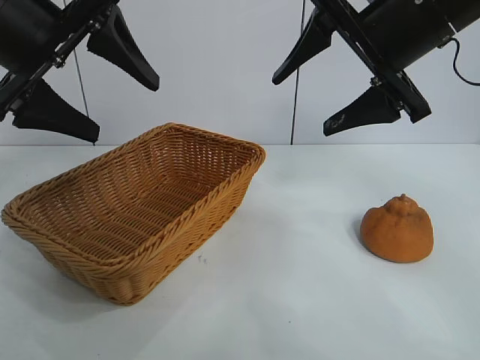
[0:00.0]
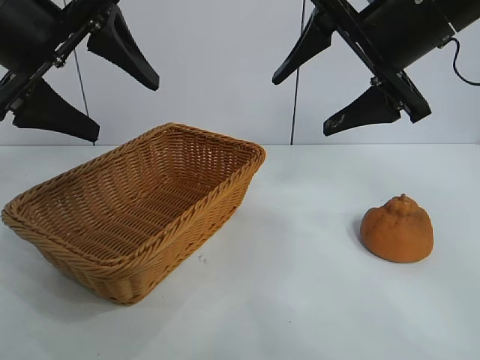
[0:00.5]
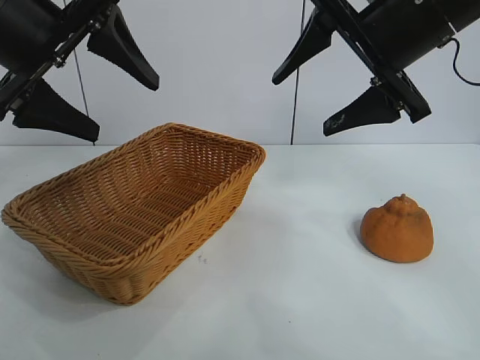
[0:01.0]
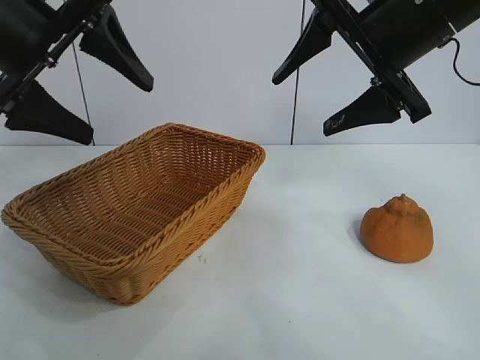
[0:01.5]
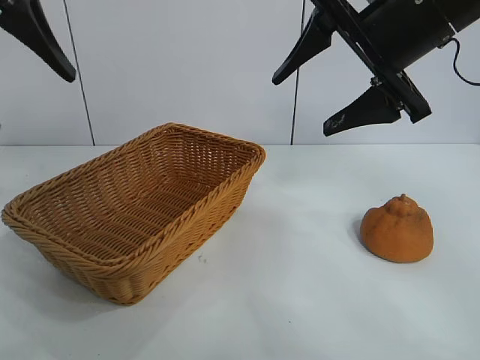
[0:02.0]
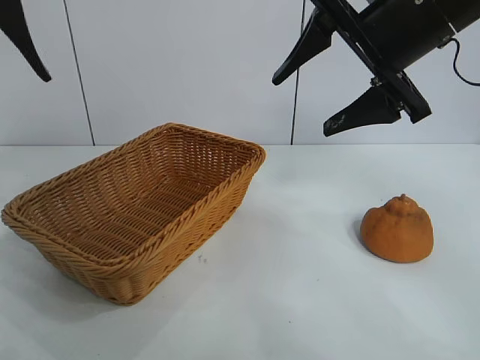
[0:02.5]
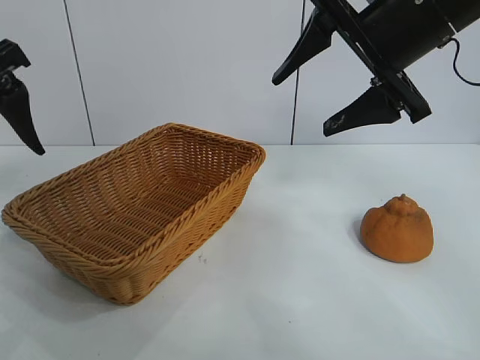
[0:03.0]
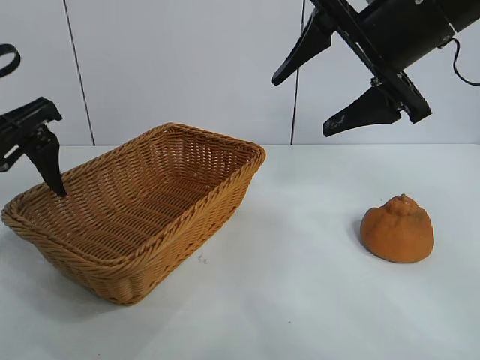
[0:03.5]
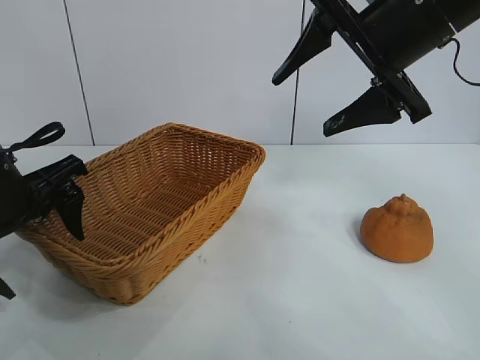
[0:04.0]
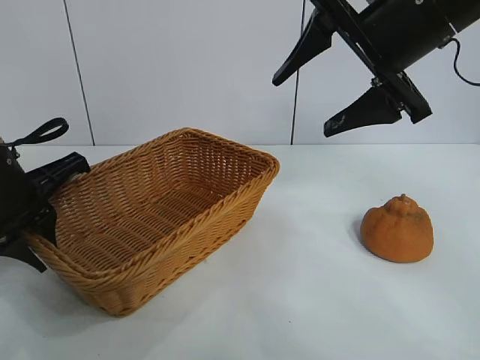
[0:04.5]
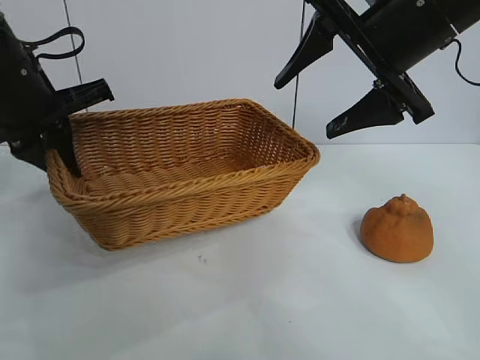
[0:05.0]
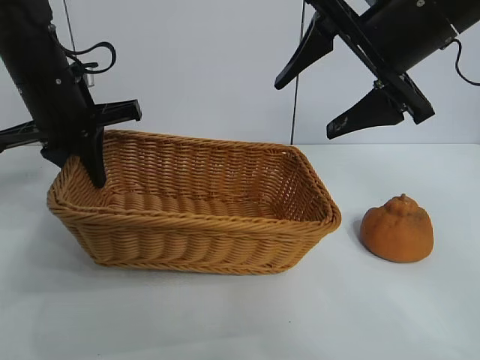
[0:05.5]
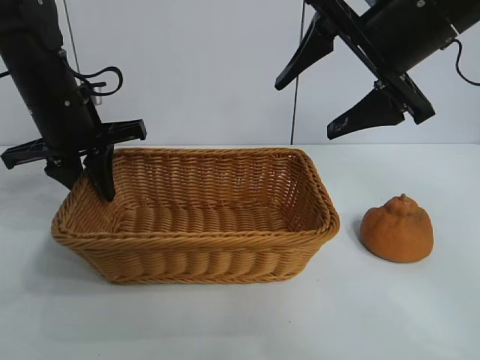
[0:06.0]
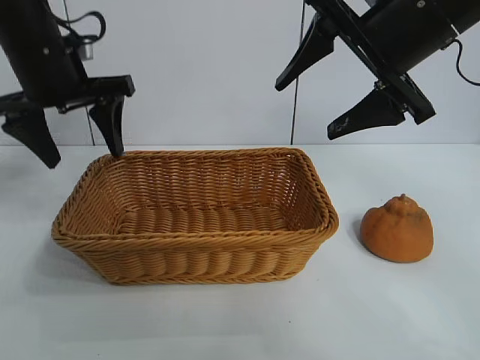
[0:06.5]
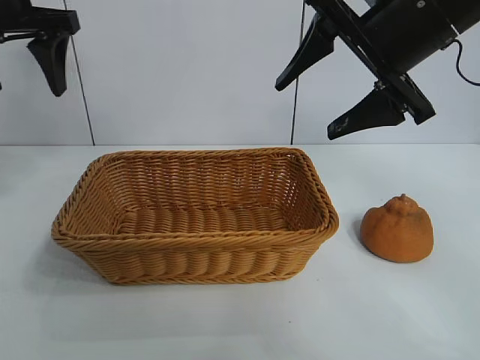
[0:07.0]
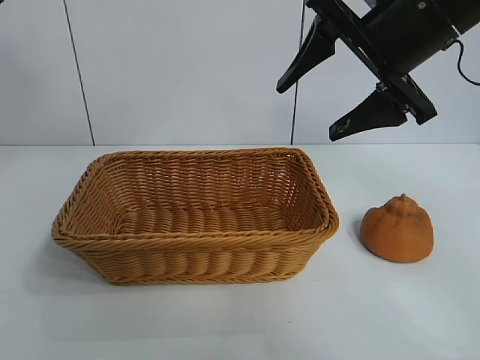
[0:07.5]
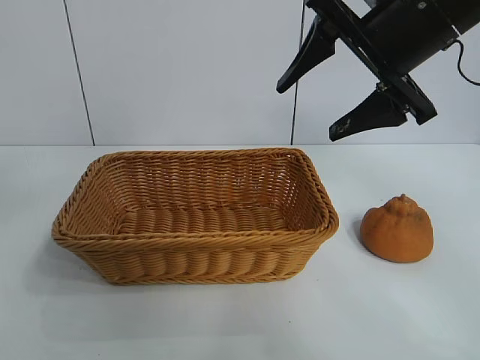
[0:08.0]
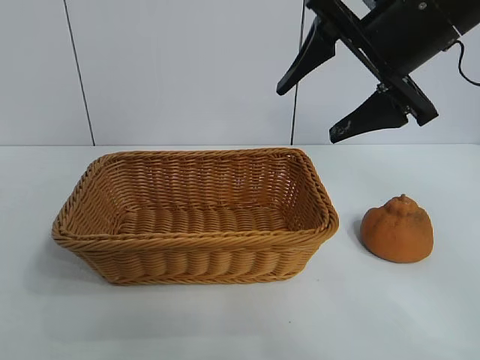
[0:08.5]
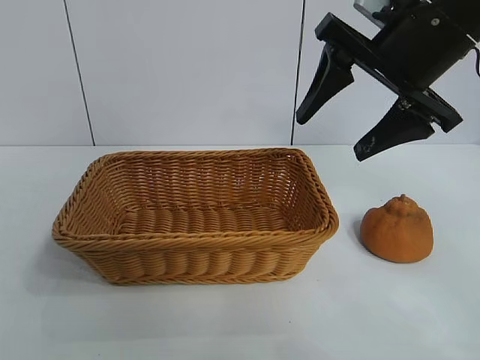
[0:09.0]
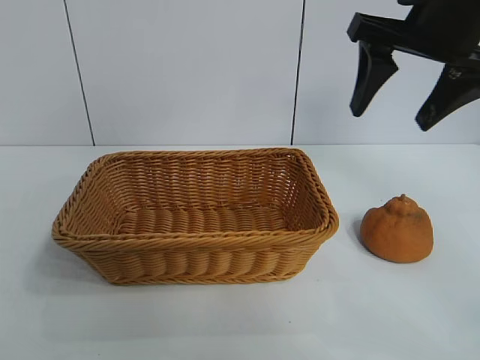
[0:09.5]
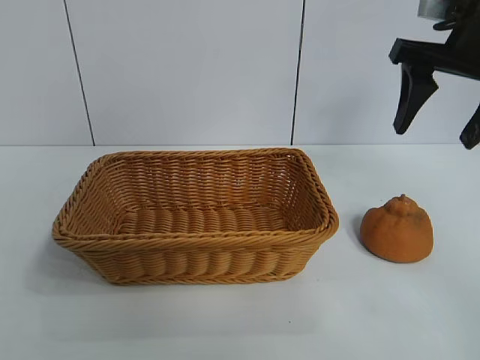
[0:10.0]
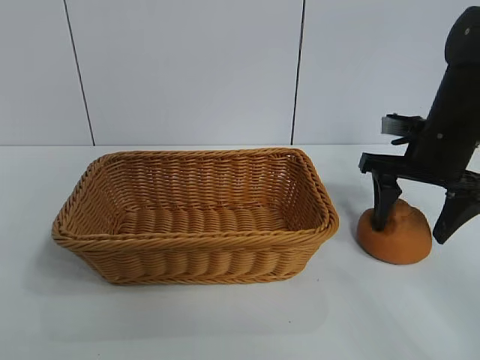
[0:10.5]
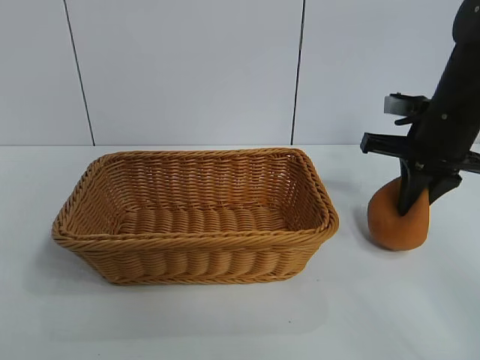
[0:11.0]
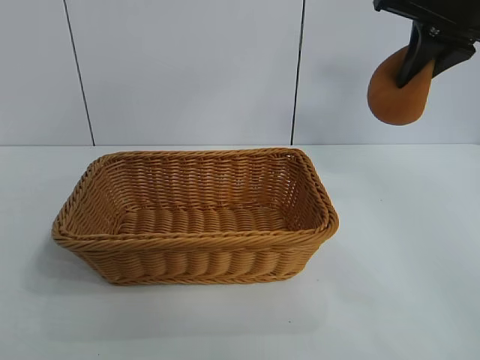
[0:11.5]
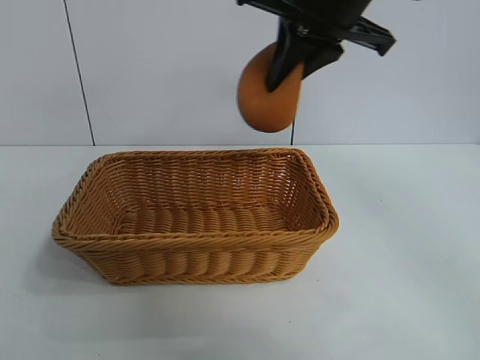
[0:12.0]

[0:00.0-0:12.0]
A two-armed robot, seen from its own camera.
Task of the whole recording: pick up the orange and put it into the basket.
Step, 0:01.5 to 0:04.0: Grasp the basket with left gripper.
Step, 0:04.5 to 0:06.0: Place the basket in the center of view with left gripper.
Step, 0:06.5 to 0:10.5: Grasp the orange with right gripper.
